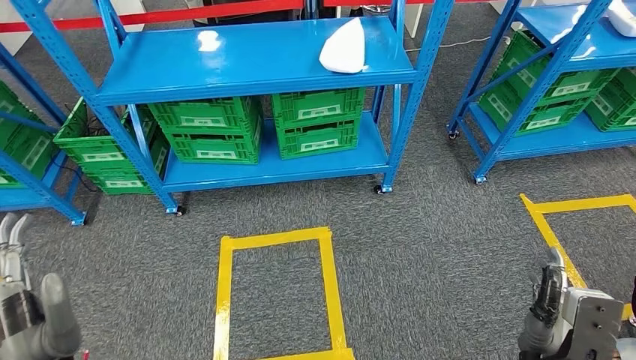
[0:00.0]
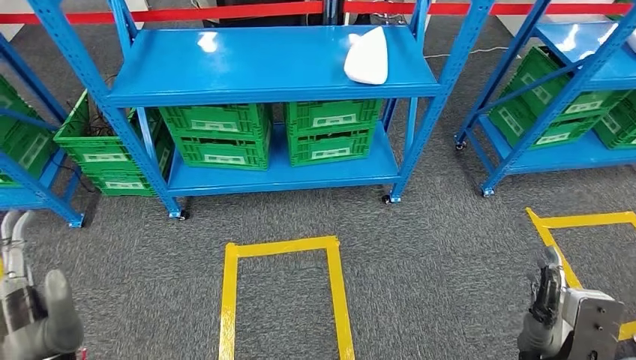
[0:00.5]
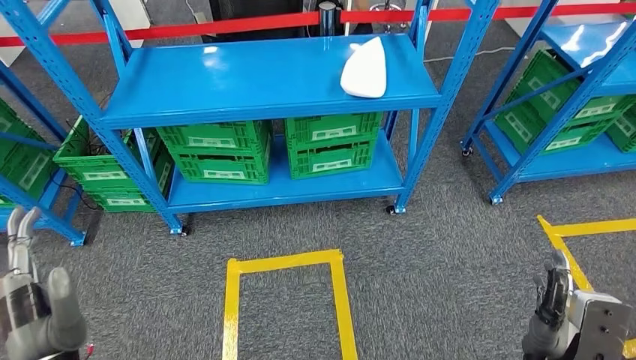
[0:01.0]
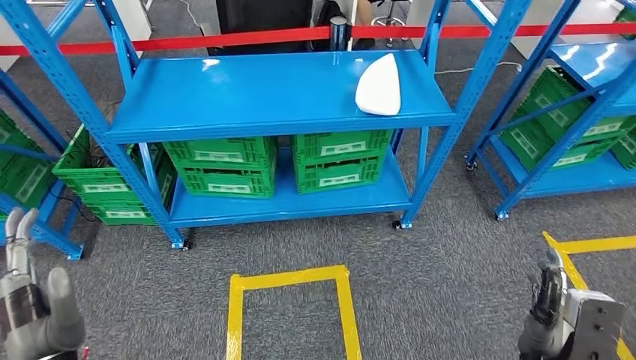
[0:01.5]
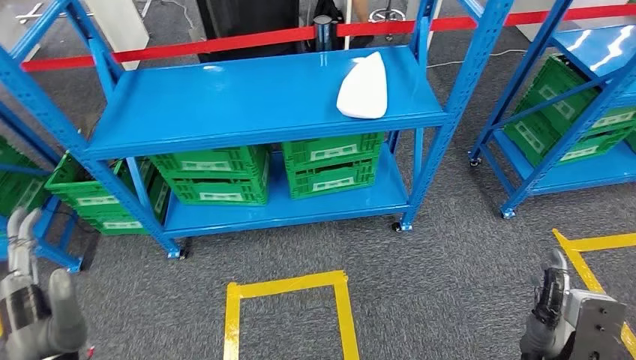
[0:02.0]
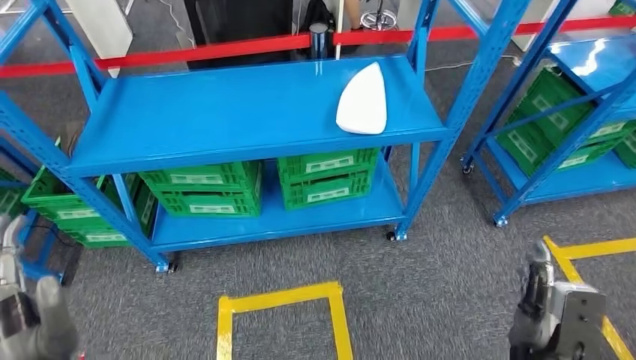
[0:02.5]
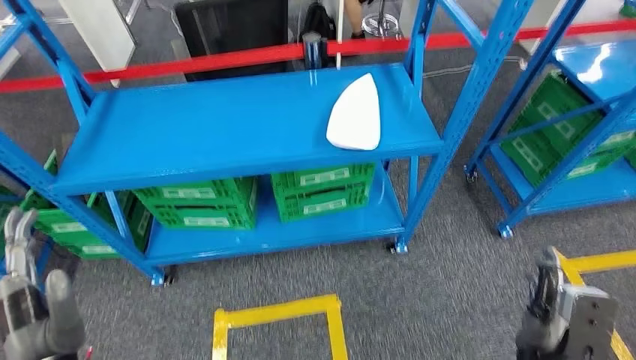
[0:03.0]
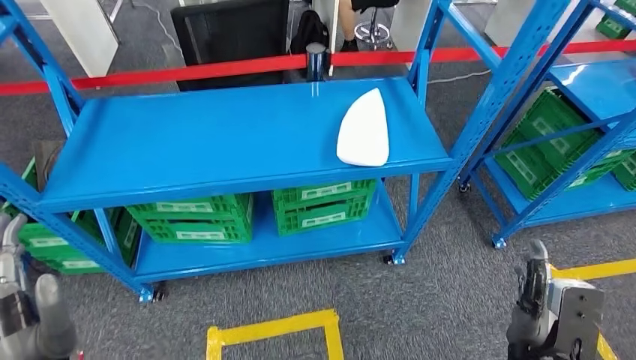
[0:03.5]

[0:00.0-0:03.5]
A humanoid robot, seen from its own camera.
Step, 0:00.0 to 0:03.5: Move to the initial position of the workbench.
